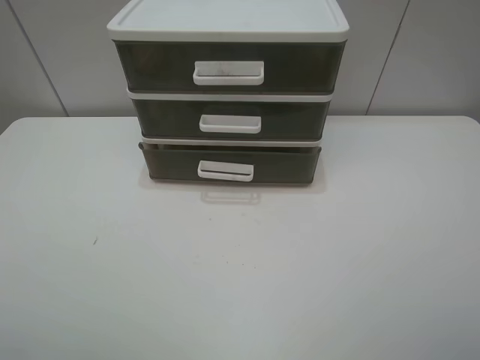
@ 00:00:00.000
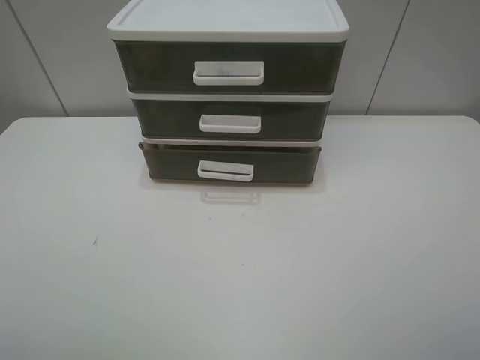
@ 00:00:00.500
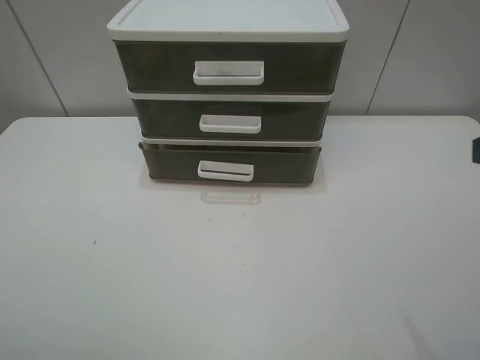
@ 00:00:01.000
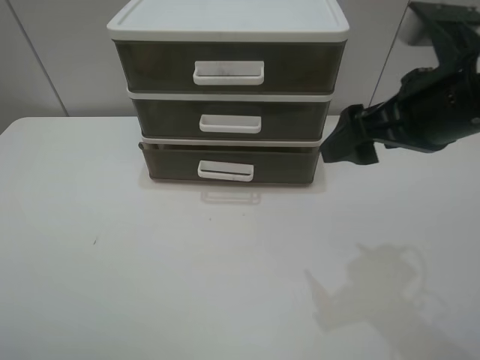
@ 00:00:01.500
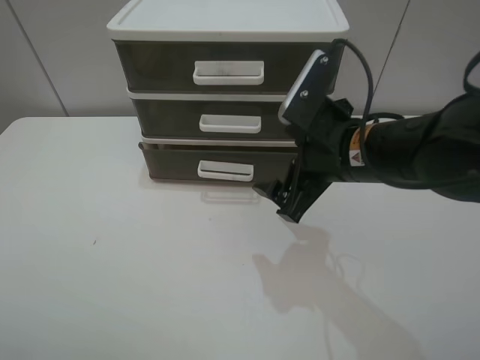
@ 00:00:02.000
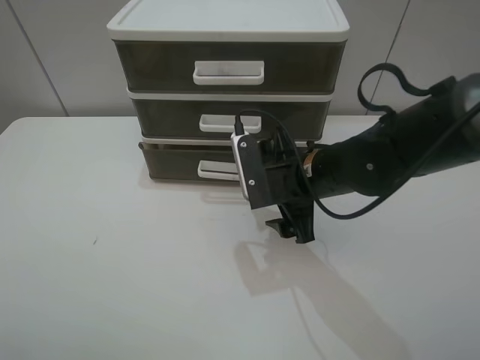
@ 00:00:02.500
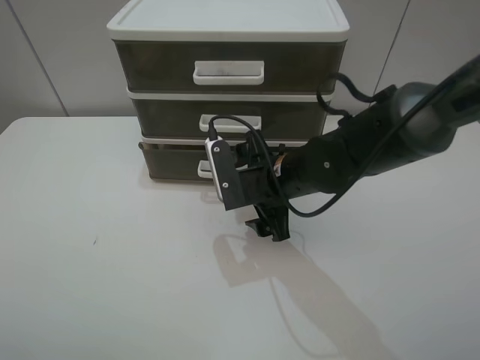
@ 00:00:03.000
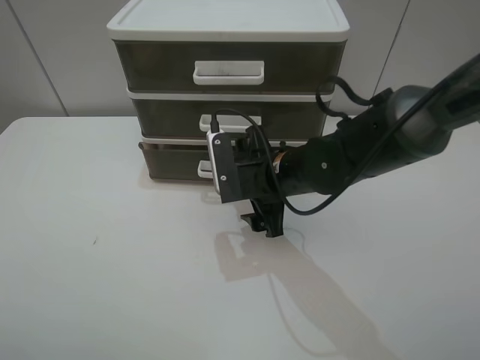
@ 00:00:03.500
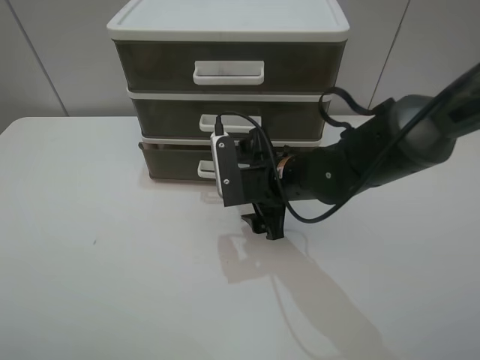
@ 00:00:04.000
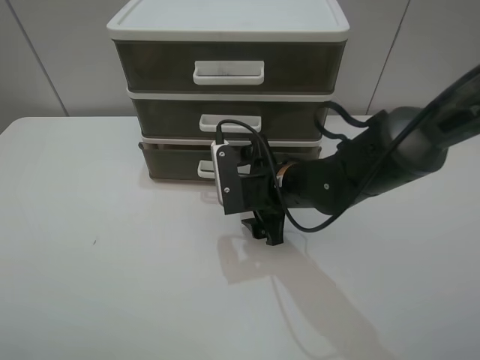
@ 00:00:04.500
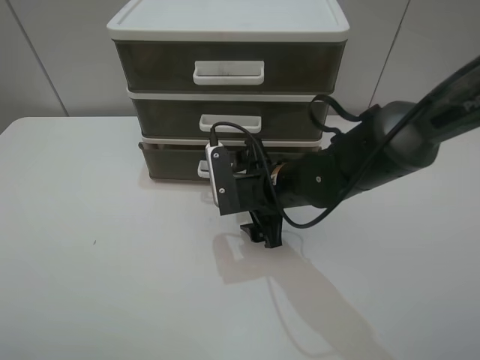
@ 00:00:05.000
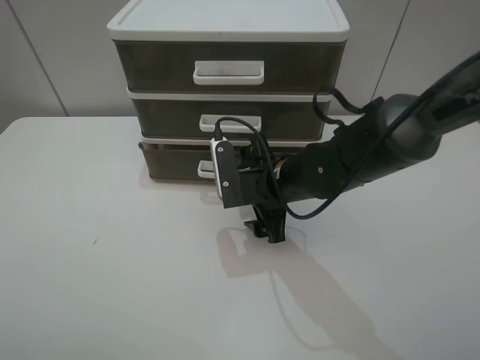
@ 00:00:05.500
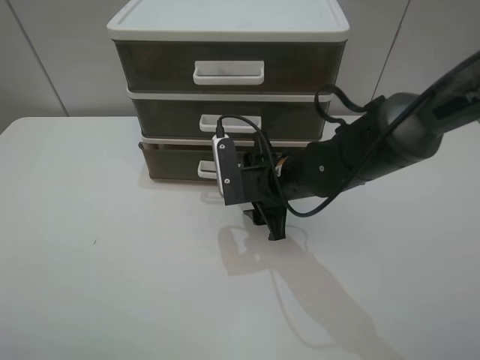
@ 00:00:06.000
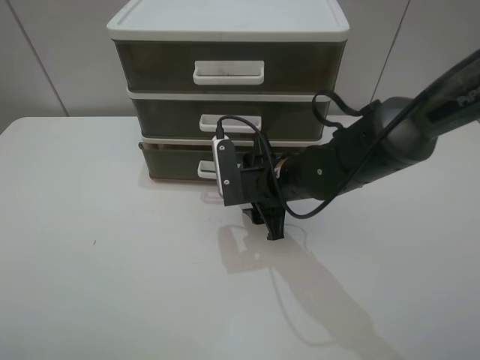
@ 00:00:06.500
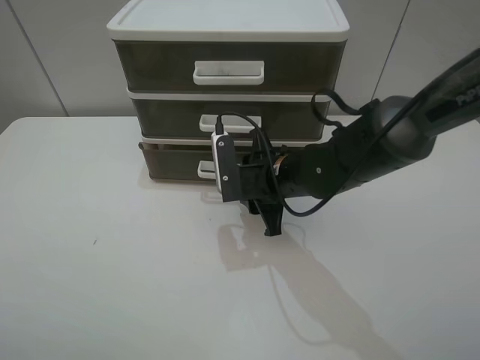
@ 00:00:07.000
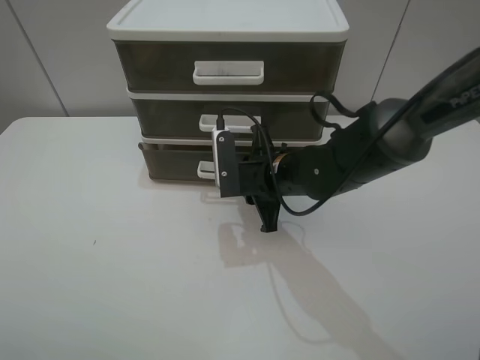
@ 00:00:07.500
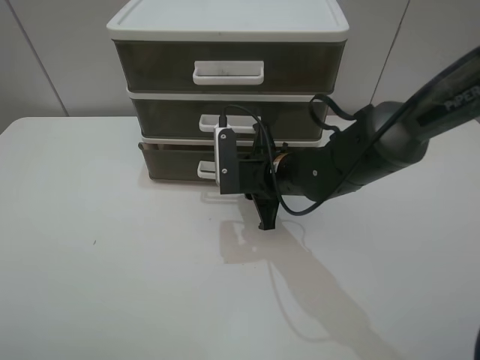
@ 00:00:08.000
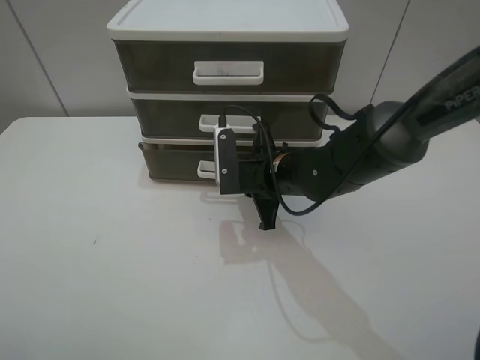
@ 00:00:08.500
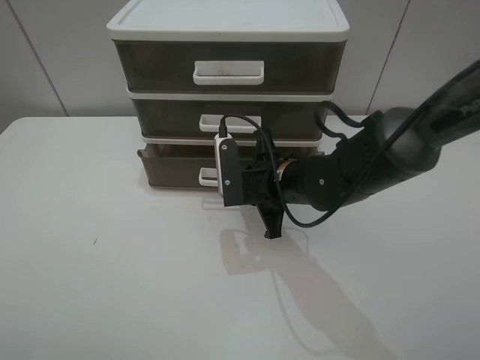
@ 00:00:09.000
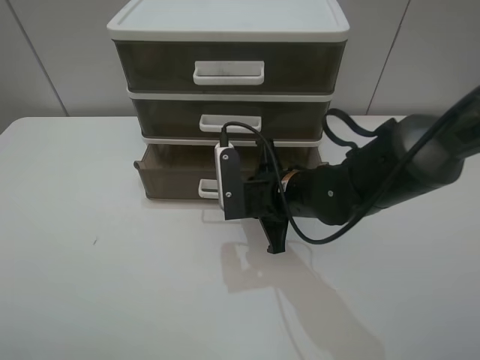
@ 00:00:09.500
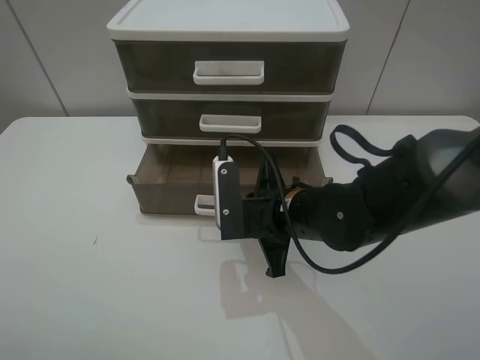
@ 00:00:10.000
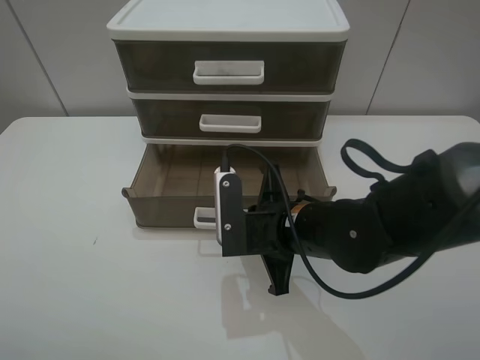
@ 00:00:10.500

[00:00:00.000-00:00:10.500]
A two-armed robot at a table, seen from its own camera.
Task of the whole recording: open the bottom drawer.
Step, 00:00:00.000 to 00:00:08.500: Grab the bottom drawer with the right gripper.
00:00:00.000 to 00:00:02.000: The right gripper goes some 30 cm forward, to the left and downward.
00:00:02.000 to 00:00:04.000: The right gripper shifts about 10 cm downward and to the left.
00:00:04.000 to 00:00:06.500: The right gripper closes up.
00:00:06.500 to 00:00:08.500: The right gripper closes.
00:00:08.500 to 00:00:10.500: The right gripper goes some 10 cm backward.

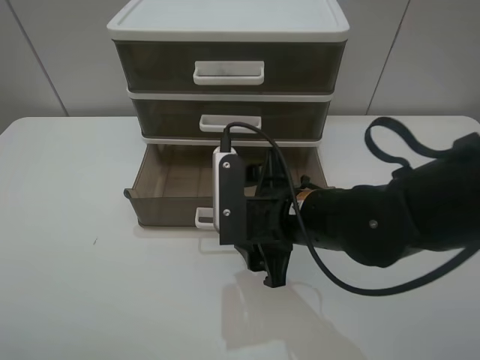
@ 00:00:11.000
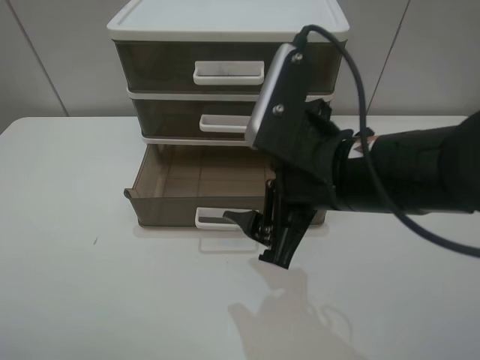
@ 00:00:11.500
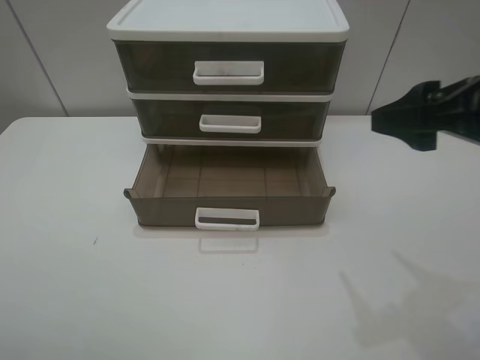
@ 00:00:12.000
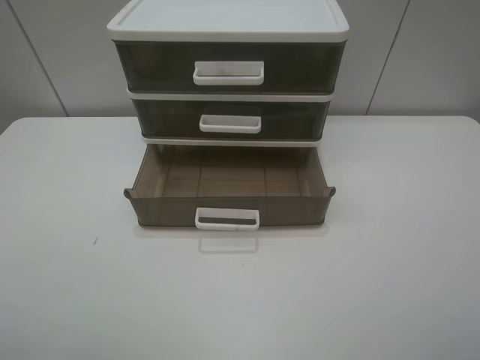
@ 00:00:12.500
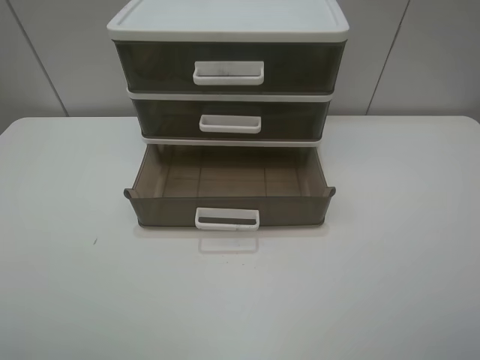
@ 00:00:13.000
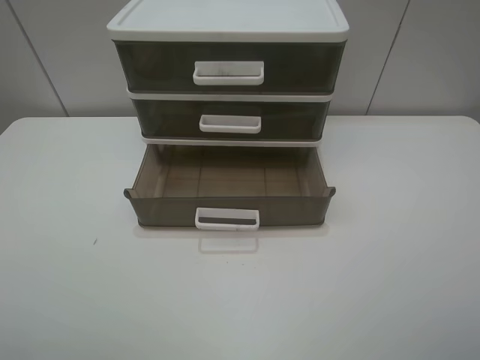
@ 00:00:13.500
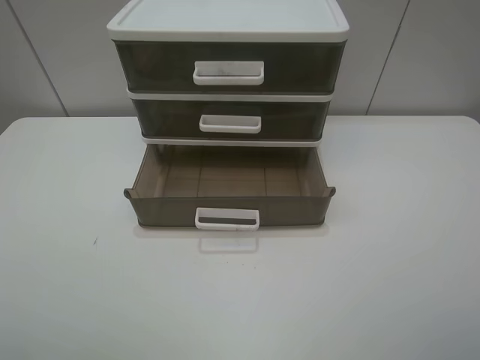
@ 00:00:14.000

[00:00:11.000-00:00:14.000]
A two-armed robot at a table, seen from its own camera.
Task of the whole recording: open the bottom drawer.
00:00:11.000 to 00:00:12.500: The right gripper moves to the right, backward and upward, roughly 35 cm.
